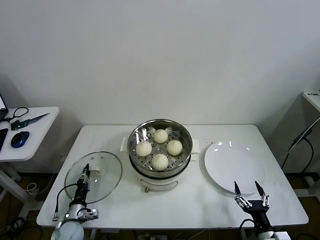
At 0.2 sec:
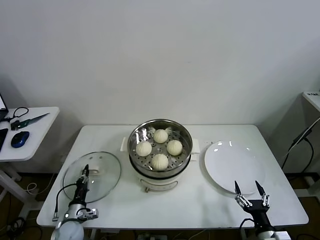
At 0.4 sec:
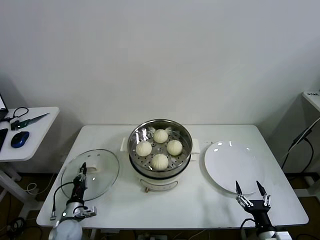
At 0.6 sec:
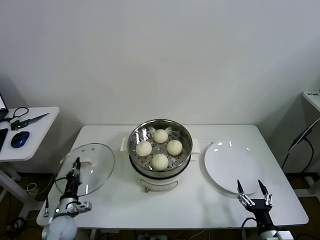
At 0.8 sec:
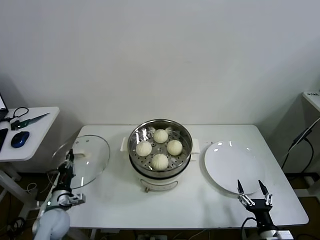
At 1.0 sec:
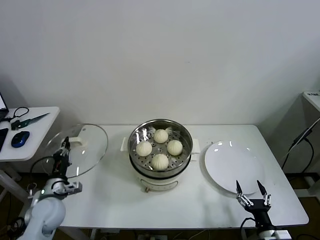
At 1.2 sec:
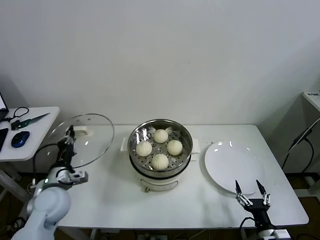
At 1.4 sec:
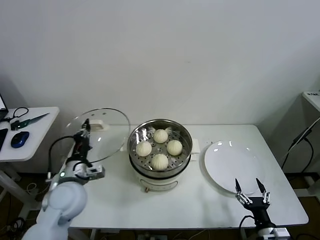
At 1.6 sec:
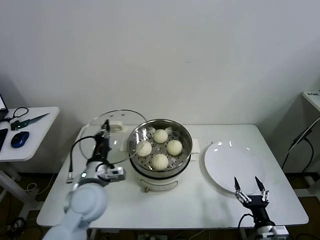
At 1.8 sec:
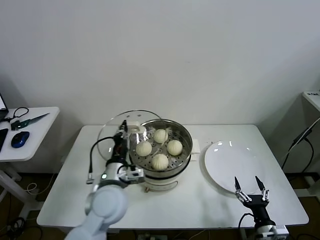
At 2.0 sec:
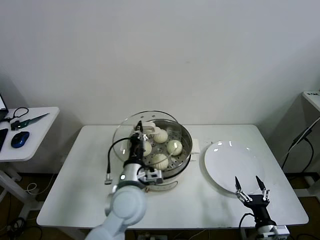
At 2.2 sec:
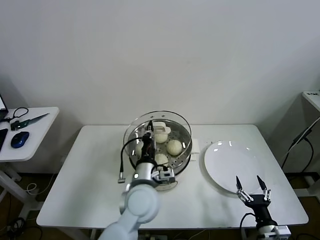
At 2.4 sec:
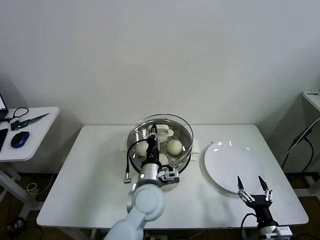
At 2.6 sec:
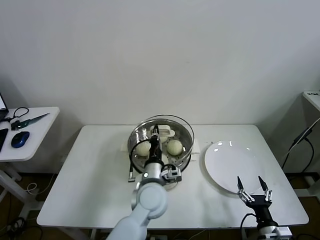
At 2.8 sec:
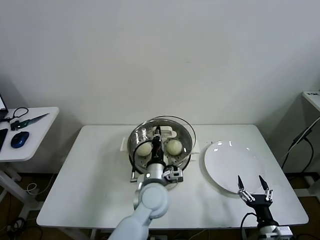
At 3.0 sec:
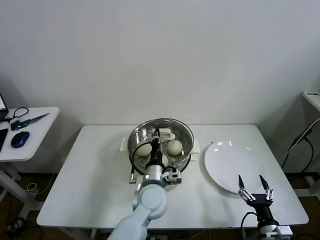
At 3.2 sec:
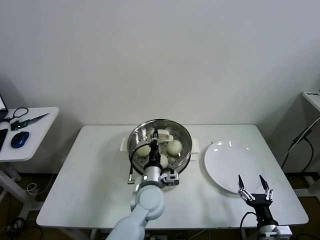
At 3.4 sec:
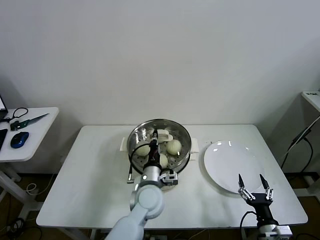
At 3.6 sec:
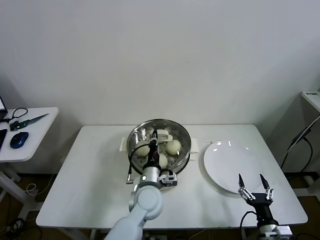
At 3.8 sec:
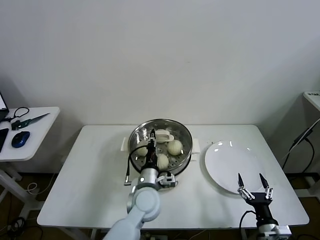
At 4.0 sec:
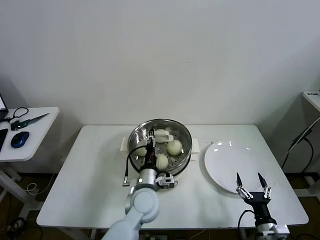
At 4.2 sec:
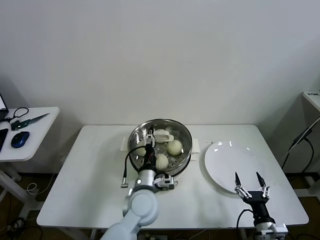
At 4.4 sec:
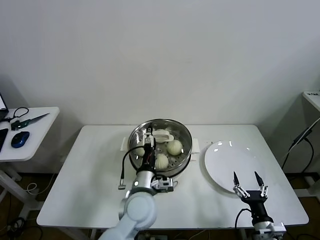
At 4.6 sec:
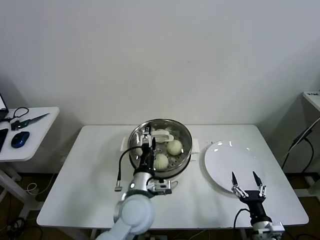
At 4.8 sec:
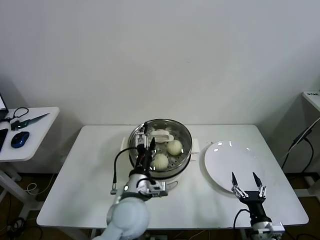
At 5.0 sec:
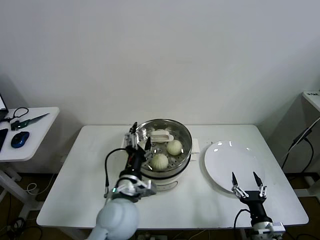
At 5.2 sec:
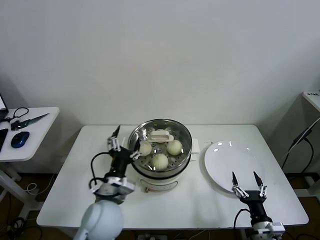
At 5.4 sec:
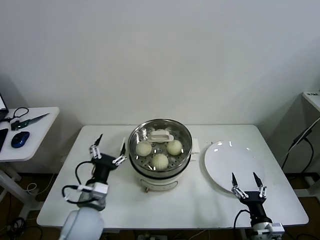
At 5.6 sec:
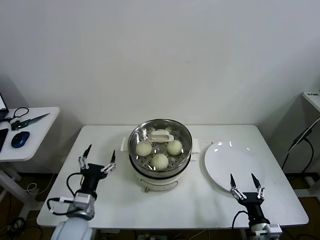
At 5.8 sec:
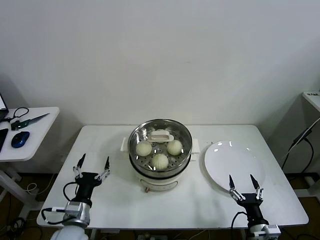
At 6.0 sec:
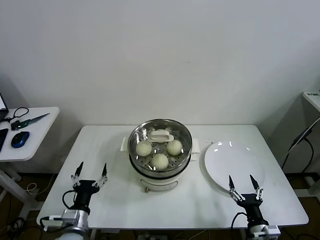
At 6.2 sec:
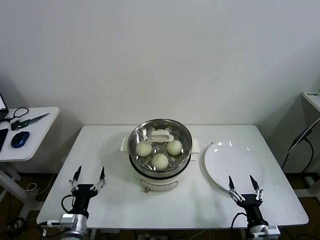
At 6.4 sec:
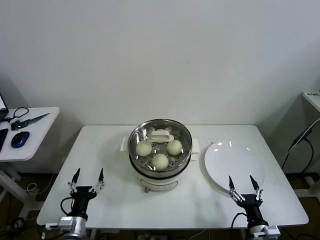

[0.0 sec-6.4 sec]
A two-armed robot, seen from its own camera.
Task of the whole recording: take steamed baozi put them in steamer then cover it.
Step, 0.2 sec to 4.4 sec: Place the pot lid on the steamer with left gripper.
0.0 sec to 1.6 sec: The left gripper moves upward and to the right, approximately 30 cm, and closes up.
1.6 sec to 3.2 sec: The left gripper is displaced to the right by some 20 cm.
3.2 sec to 4.8 sec: The left gripper is displaced backward by approximately 5 cm, and opens up.
4.8 sec to 6.4 sec: The left gripper travels to the left and downward by roughly 25 cm.
